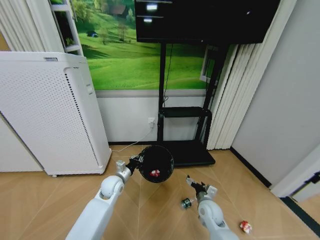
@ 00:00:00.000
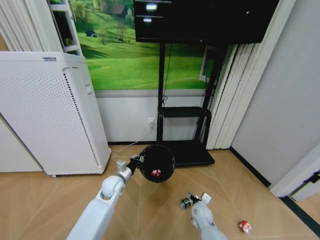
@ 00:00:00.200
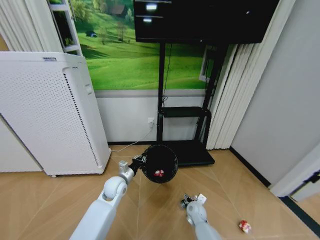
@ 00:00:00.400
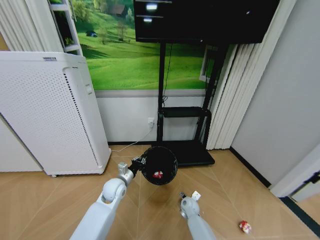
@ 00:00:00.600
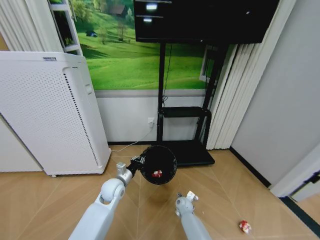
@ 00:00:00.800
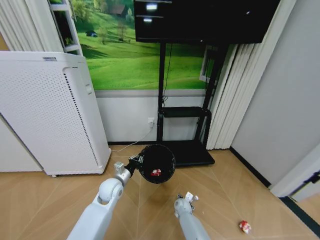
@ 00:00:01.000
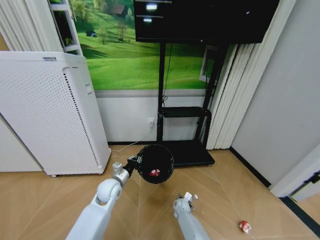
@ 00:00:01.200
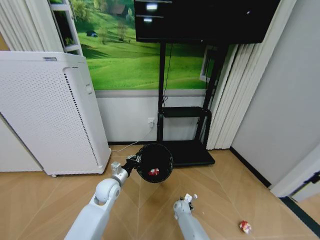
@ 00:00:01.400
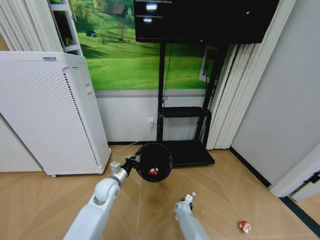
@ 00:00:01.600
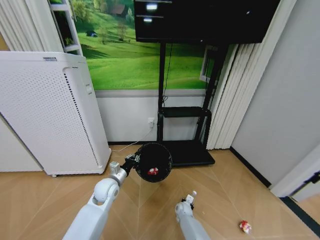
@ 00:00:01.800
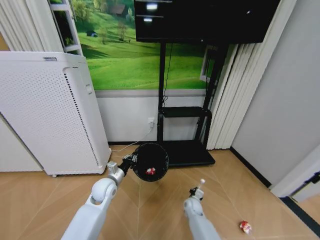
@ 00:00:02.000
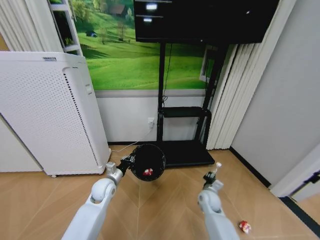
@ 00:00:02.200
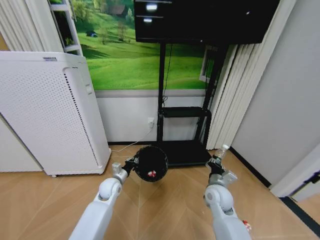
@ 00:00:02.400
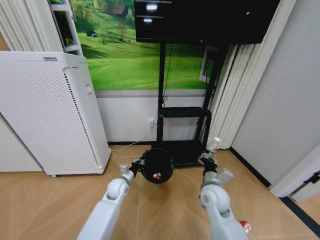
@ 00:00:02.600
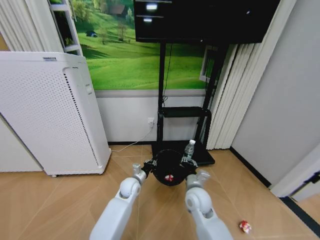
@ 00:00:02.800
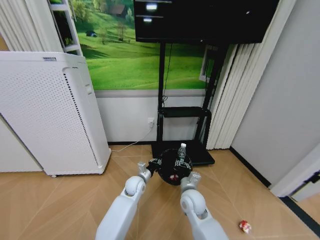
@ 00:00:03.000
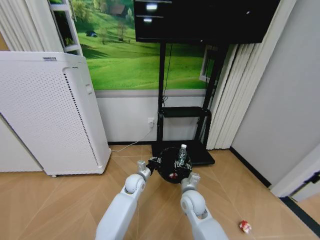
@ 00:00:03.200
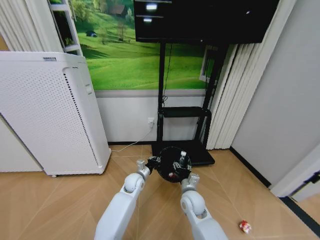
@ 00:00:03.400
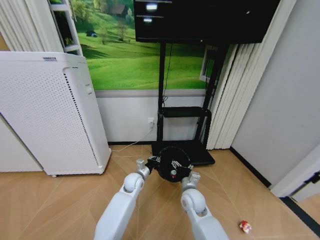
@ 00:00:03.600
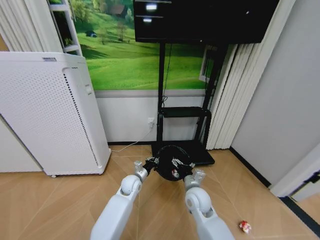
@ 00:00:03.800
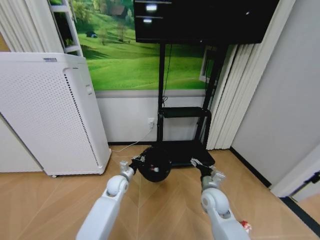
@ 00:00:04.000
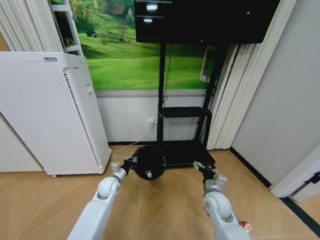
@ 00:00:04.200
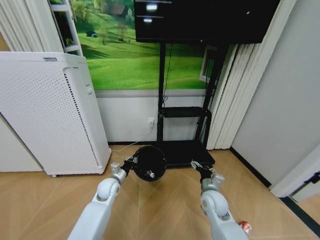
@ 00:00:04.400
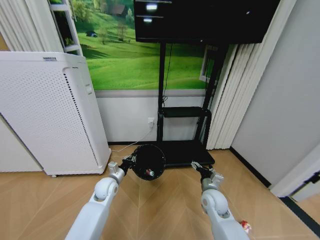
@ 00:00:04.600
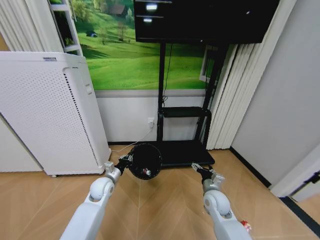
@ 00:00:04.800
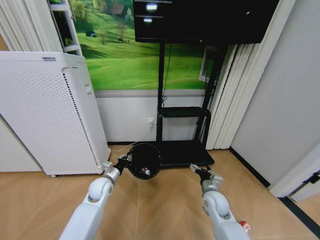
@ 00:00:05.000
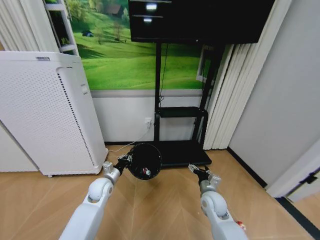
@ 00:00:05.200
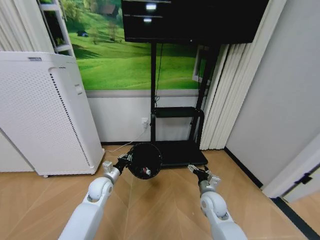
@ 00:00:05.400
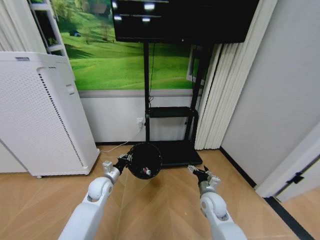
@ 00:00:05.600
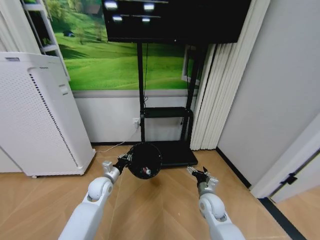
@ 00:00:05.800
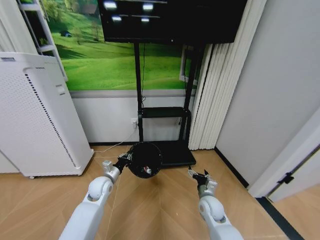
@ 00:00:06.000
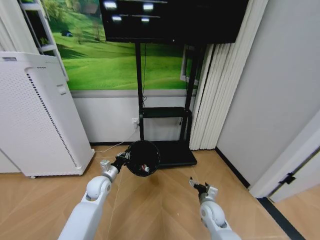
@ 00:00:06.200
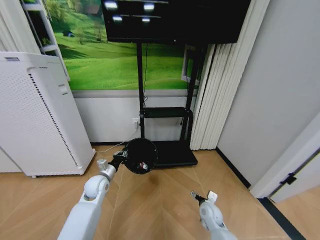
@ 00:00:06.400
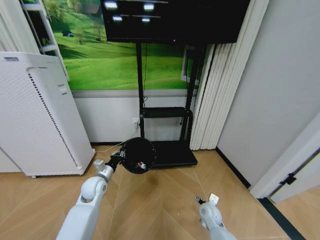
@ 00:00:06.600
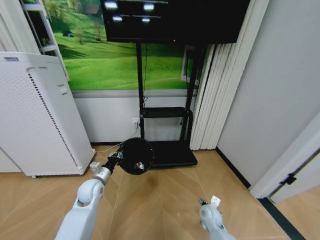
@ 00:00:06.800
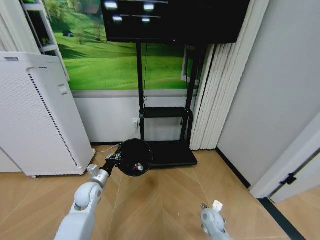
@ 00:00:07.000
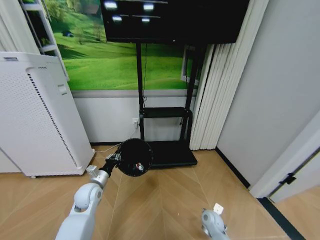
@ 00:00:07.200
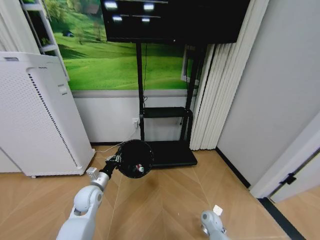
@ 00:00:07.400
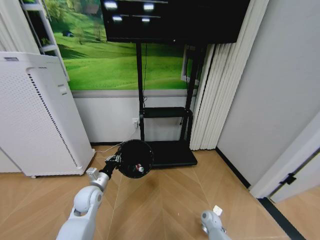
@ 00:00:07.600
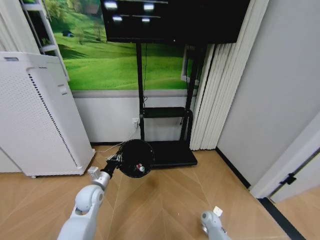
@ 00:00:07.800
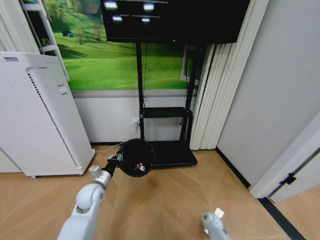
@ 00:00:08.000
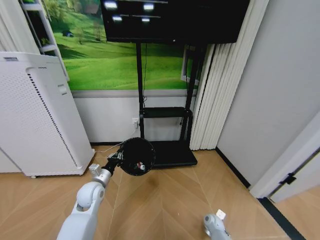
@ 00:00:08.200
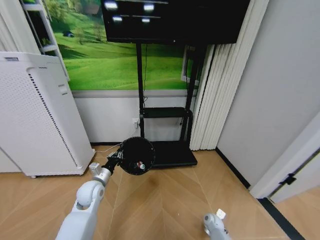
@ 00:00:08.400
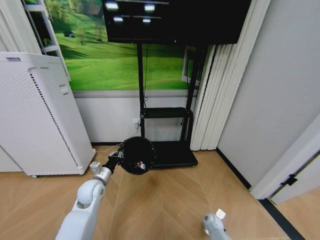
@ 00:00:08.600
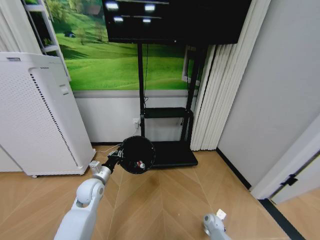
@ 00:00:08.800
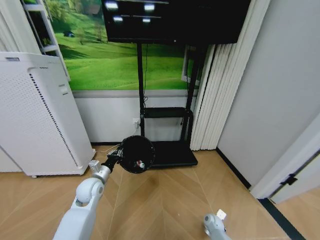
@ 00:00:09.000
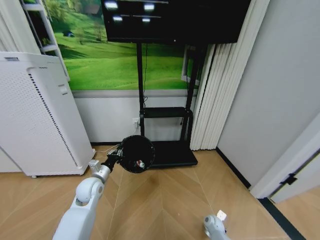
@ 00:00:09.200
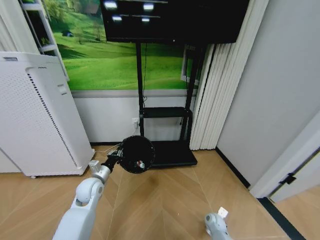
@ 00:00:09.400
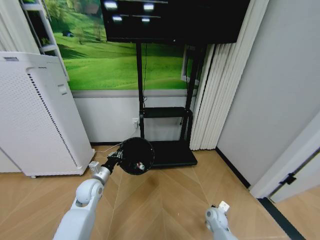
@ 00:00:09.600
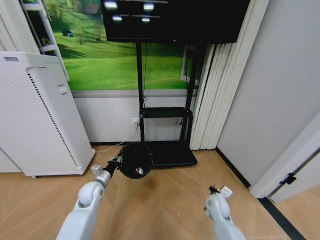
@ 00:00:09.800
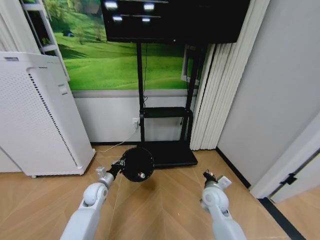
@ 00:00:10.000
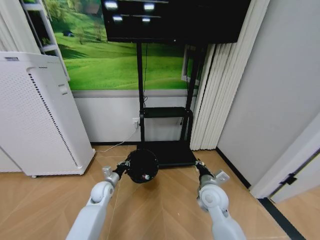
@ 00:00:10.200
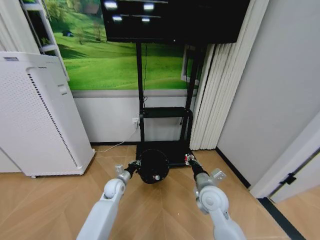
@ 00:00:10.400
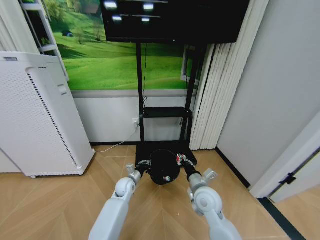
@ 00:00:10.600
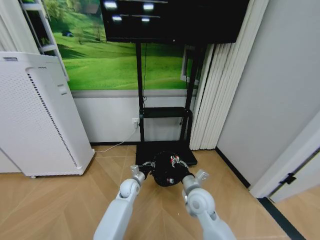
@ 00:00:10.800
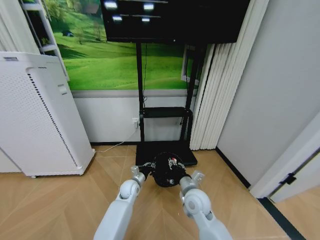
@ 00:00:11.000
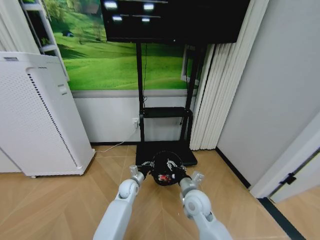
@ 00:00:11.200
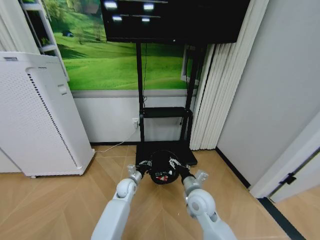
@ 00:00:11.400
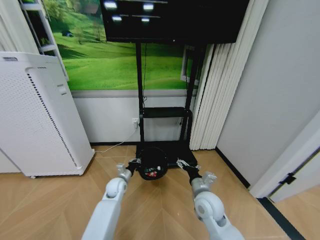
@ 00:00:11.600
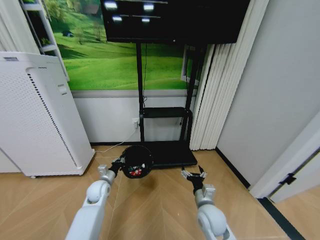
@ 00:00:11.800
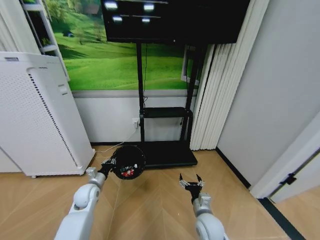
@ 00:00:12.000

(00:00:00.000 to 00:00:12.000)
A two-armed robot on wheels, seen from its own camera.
Task of the whole recording: Pick up the trash bin and place the garbage on the floor into it.
00:00:00.000 - 00:00:01.600: The right gripper shifts some 20 cm downward, and closes.
00:00:01.600 - 00:00:03.000: The left gripper is displaced to the right and downward by some 15 cm, while the right gripper is displaced upward by some 30 cm, and closes.
00:00:03.000 - 00:00:04.400: The left gripper heads to the left, covering roughly 10 cm, while the right gripper is displaced to the right by about 10 cm, and opens up.
00:00:04.400 - 00:00:06.000: The right gripper goes some 5 cm downward.
00:00:06.000 - 00:00:07.600: The right gripper goes about 15 cm downward, while the left gripper heads backward, covering roughly 5 cm.
00:00:07.600 - 00:00:09.000: The right gripper closes up.
00:00:09.000 - 00:00:10.400: The right gripper moves upward, approximately 30 cm; the left gripper moves downward, to the right and forward, some 15 cm.
00:00:10.400 - 00:00:12.000: The left gripper is displaced to the left and backward by approximately 10 cm; the right gripper heads downward and backward, covering some 10 cm, and opens up.

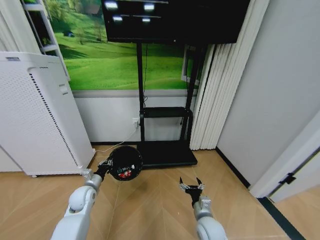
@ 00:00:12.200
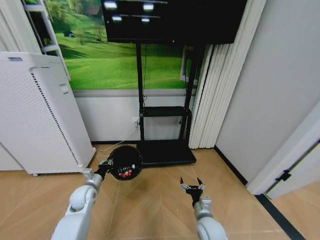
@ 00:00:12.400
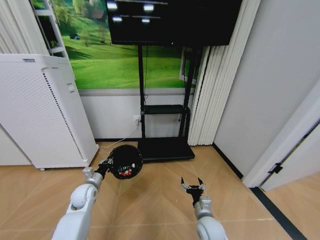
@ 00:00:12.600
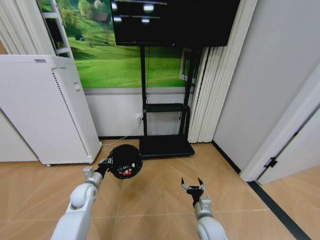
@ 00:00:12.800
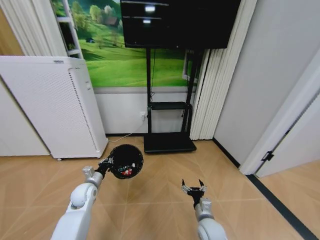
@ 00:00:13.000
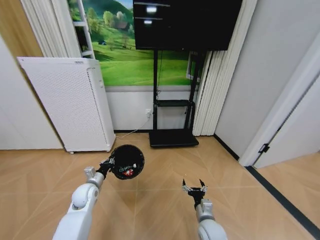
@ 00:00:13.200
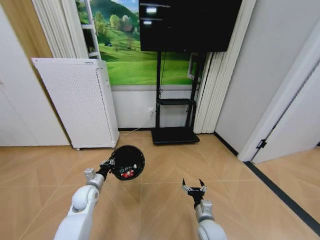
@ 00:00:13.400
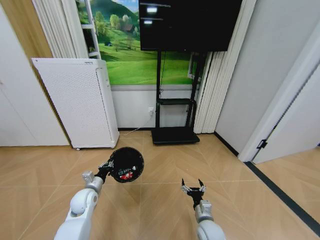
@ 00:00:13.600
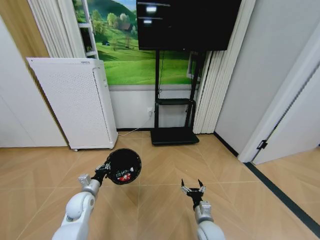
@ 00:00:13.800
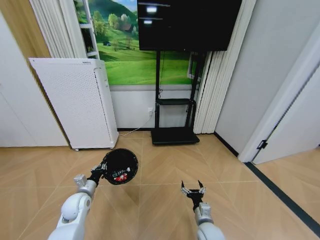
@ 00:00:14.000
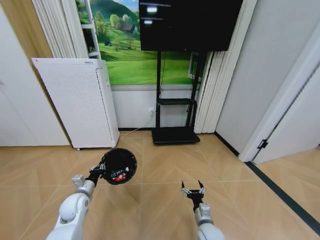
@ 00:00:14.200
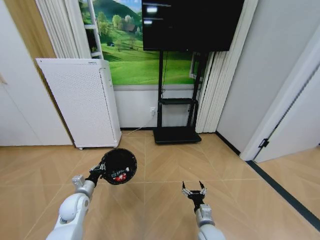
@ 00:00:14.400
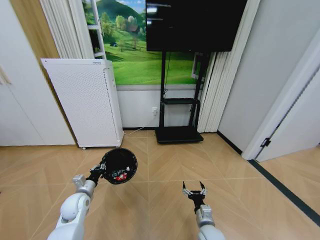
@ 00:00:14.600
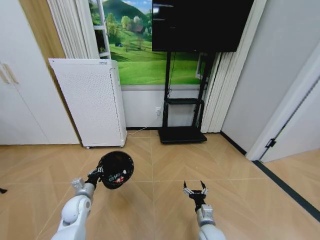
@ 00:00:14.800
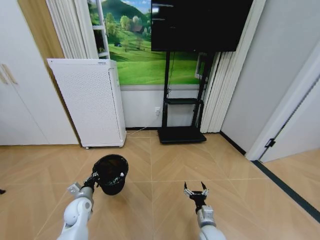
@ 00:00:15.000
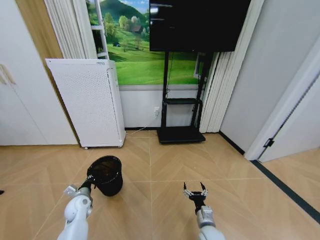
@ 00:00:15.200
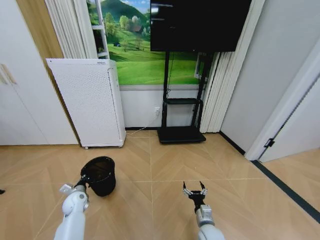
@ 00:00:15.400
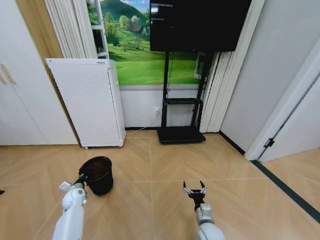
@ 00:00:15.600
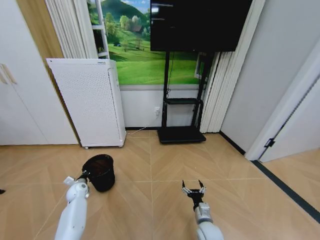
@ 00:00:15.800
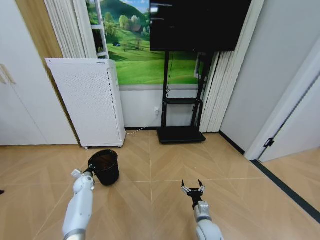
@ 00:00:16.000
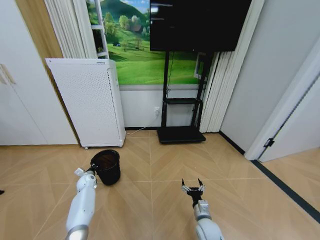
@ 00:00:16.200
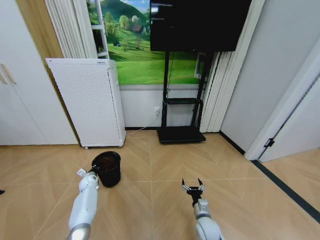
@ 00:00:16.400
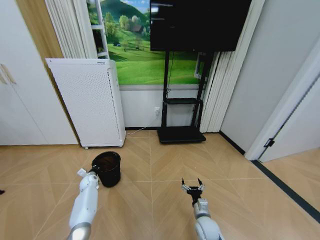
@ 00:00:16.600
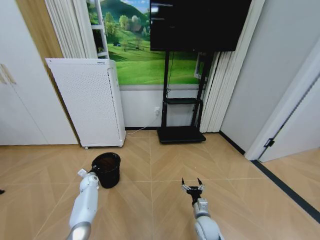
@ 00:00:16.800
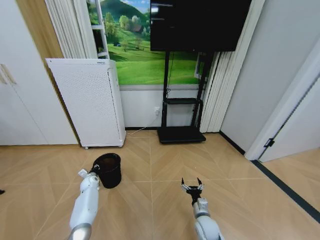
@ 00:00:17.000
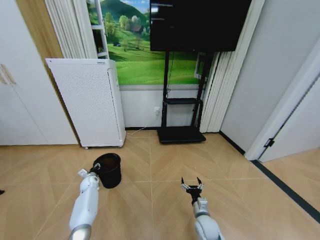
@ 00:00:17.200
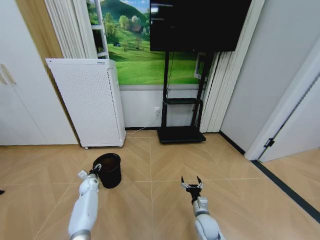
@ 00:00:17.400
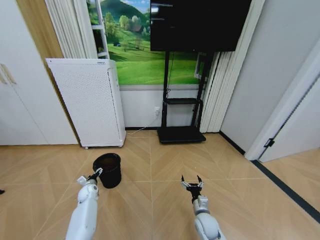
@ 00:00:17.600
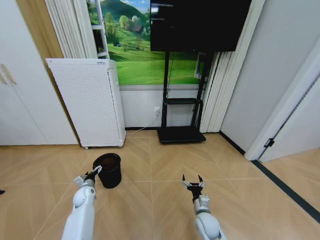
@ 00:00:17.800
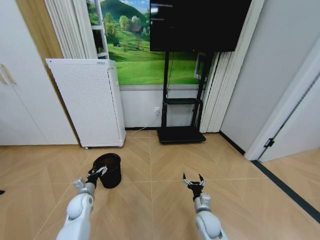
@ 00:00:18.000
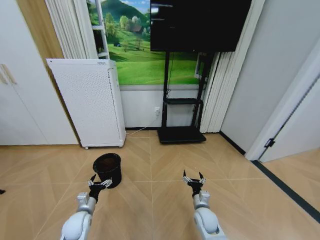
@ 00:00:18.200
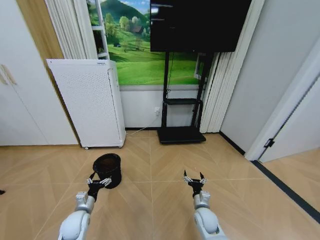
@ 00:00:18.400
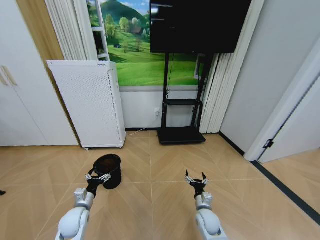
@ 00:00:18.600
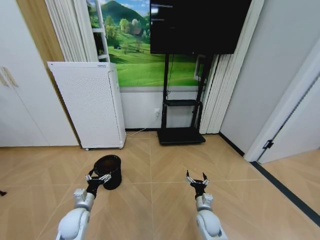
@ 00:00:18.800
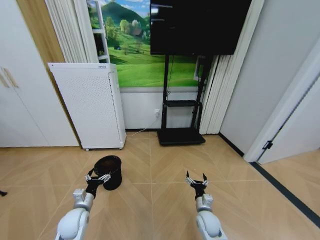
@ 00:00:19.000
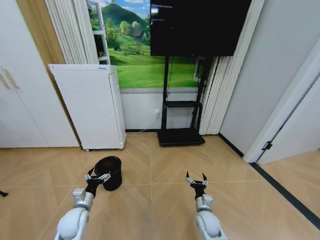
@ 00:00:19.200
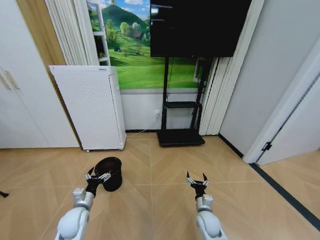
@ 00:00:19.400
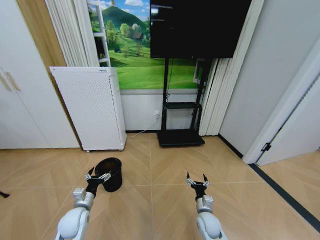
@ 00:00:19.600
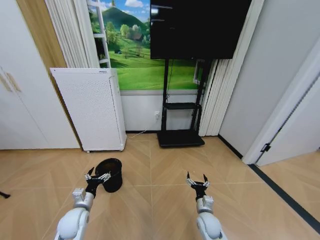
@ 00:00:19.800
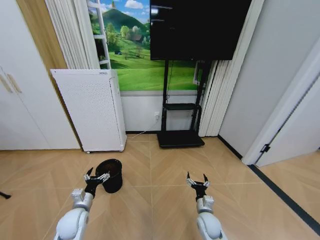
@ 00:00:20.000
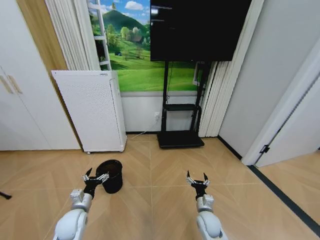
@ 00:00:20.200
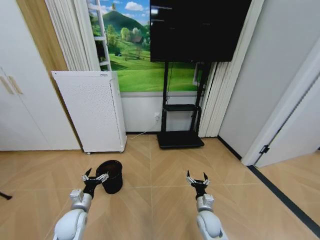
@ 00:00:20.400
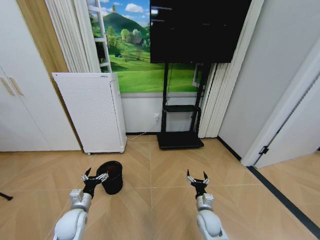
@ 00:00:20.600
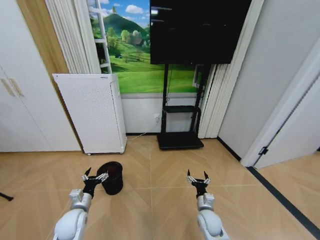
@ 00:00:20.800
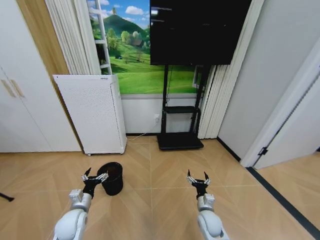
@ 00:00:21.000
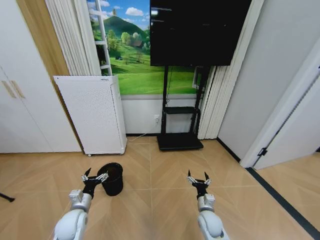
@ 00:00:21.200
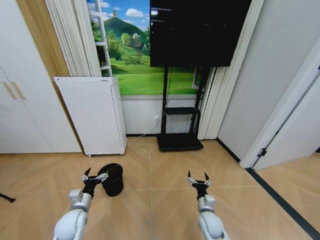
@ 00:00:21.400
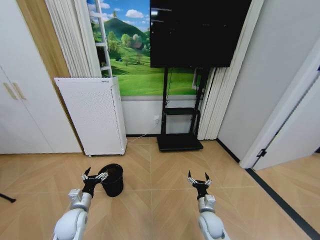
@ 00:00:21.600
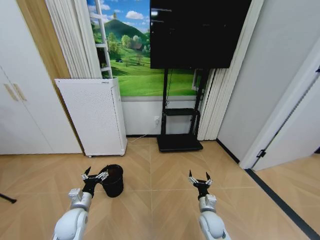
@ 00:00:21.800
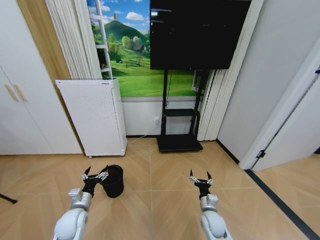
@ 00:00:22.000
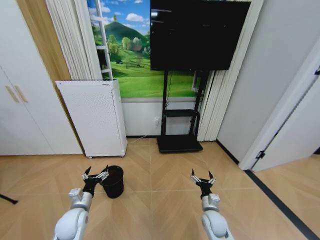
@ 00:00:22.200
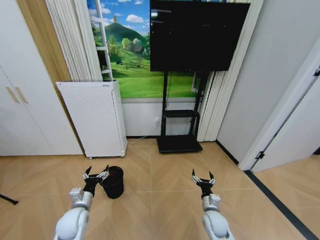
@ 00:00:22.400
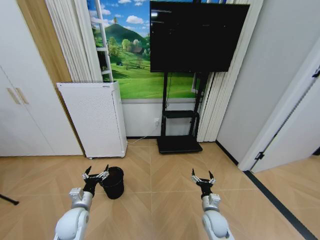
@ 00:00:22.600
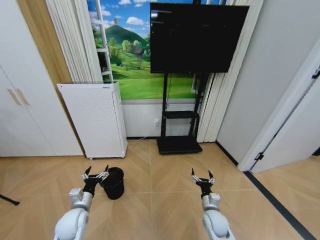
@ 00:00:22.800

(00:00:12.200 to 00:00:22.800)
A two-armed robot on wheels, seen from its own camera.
Task of the whole recording: Pick up the trash bin and place the garbage on the floor into it.
00:00:13.800 - 00:00:15.200: The left gripper shifts by approximately 5 cm.
00:00:15.200 - 00:00:16.800: The left gripper shifts some 15 cm forward and downward.
00:00:16.800 - 00:00:18.200: The left gripper moves backward, approximately 20 cm, and opens its fingers.
00:00:18.200 - 00:00:22.800: The grippers move only a little.
